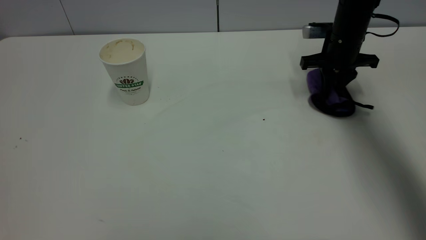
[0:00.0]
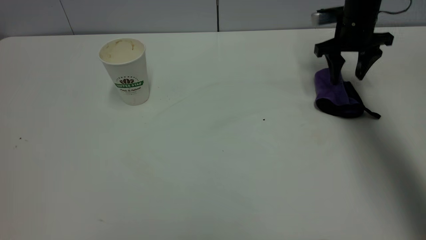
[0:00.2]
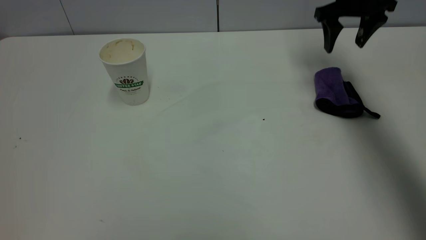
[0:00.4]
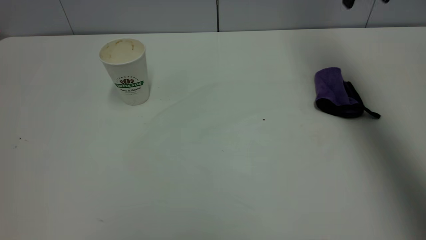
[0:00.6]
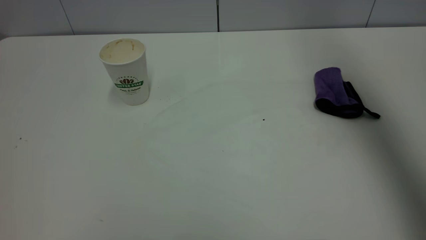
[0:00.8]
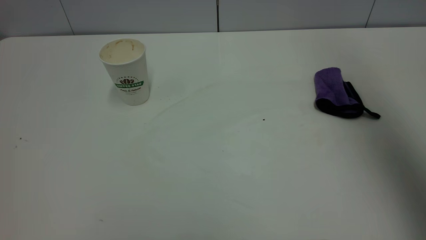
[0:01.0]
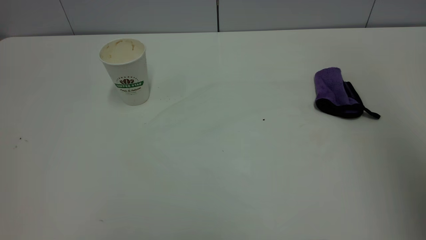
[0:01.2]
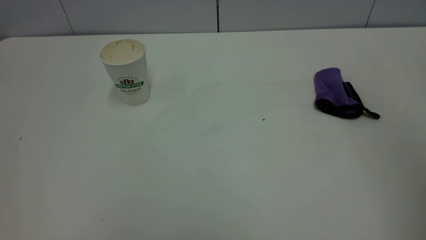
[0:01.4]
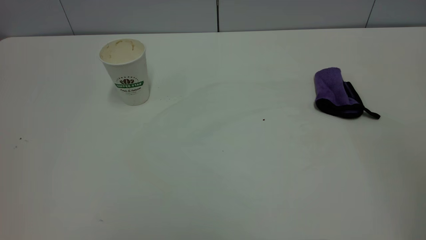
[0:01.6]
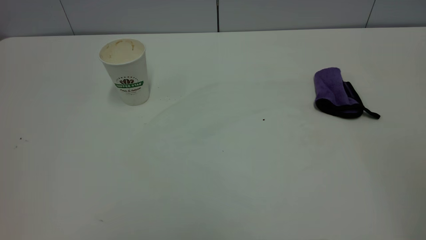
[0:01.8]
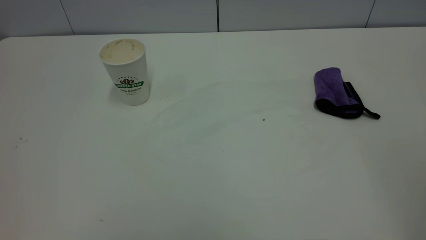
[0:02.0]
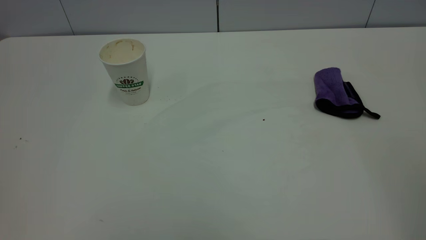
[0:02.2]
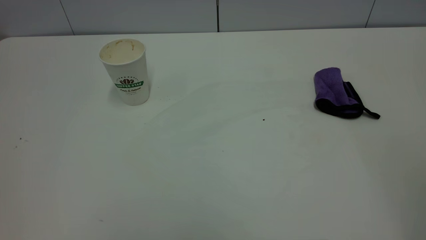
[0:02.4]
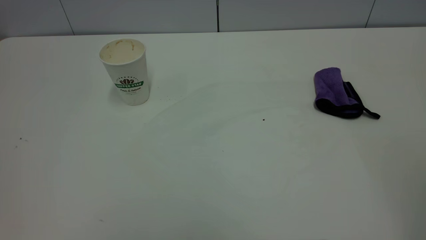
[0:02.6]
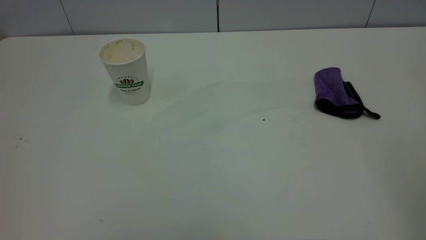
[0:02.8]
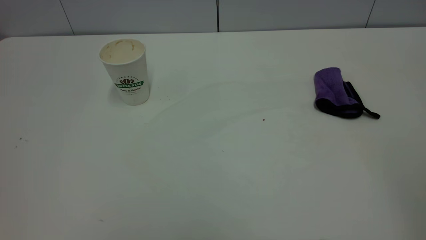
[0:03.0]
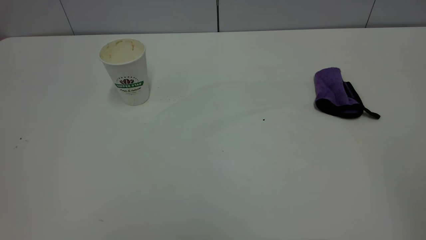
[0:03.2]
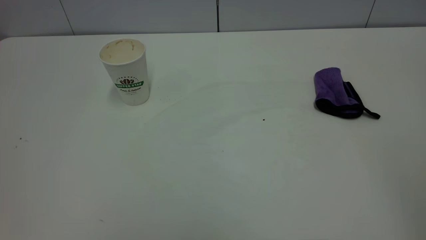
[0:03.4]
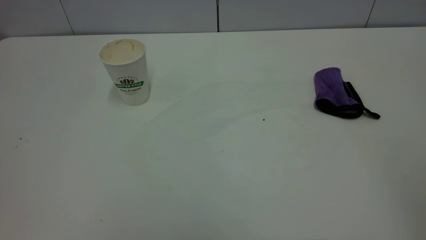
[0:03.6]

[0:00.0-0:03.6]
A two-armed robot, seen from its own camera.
Task of the whole recording: the left gripper pick up the fallen cup and place it upright, the right gripper grasp the purple rag and wipe the coffee stain on the table, the right gripper put the purple rag back in its original position.
0:00.0 to 0:01.8: The right gripper is displaced backward and upward by roughly 60 cm, and opens up.
